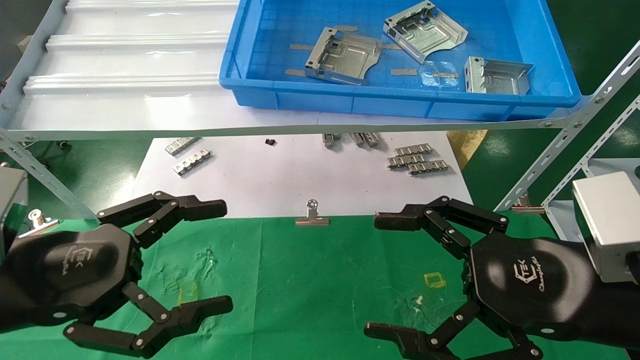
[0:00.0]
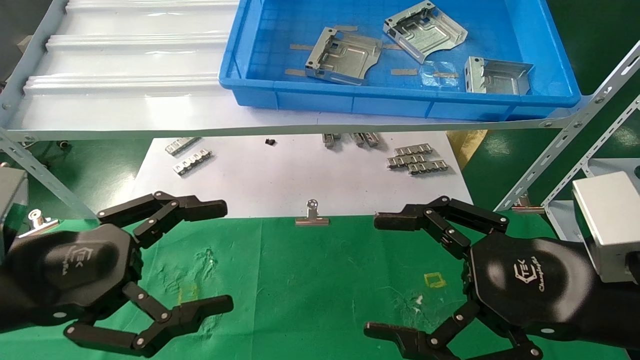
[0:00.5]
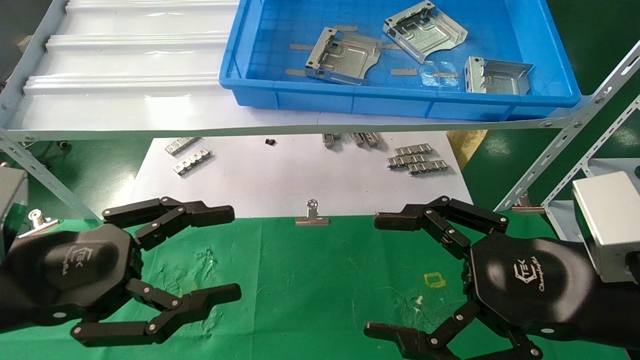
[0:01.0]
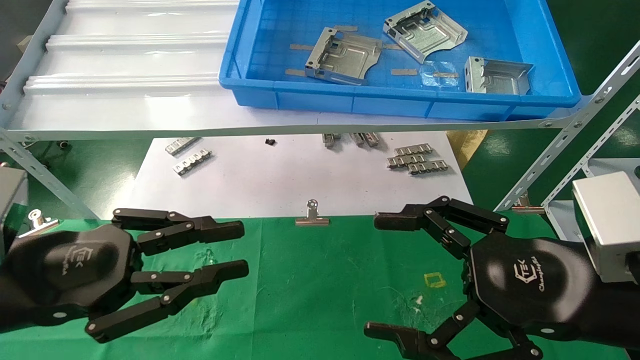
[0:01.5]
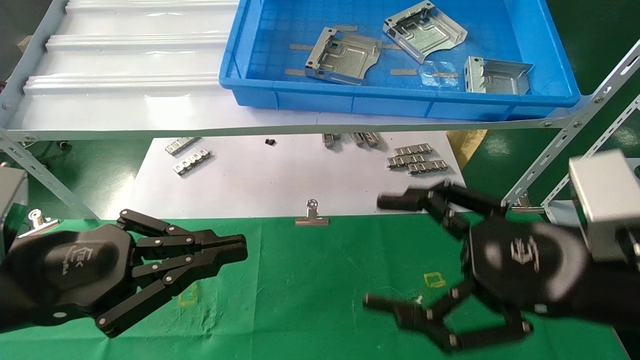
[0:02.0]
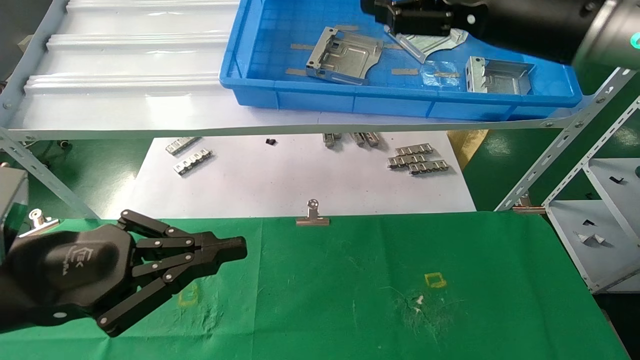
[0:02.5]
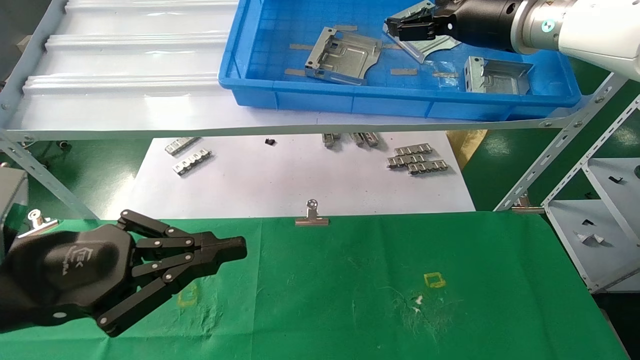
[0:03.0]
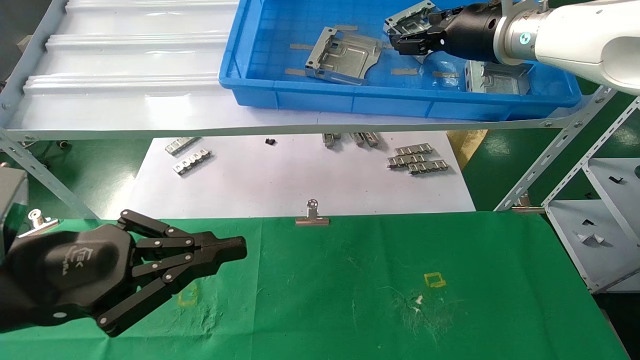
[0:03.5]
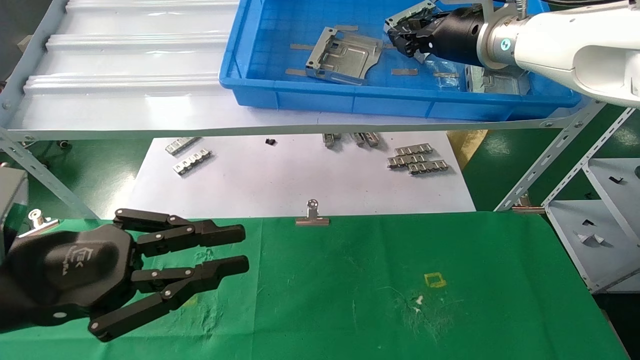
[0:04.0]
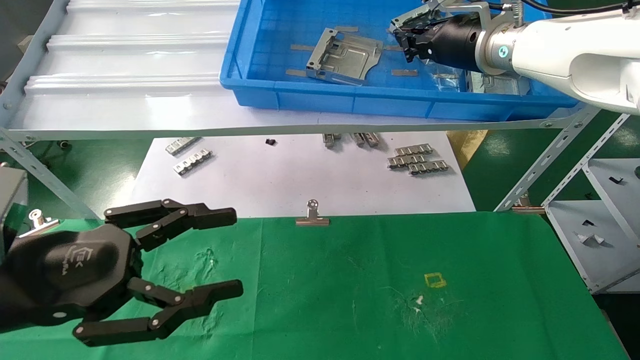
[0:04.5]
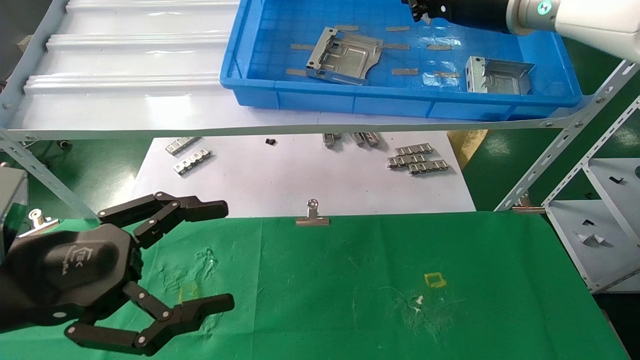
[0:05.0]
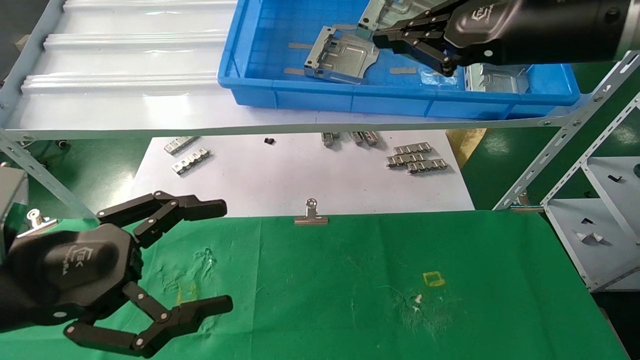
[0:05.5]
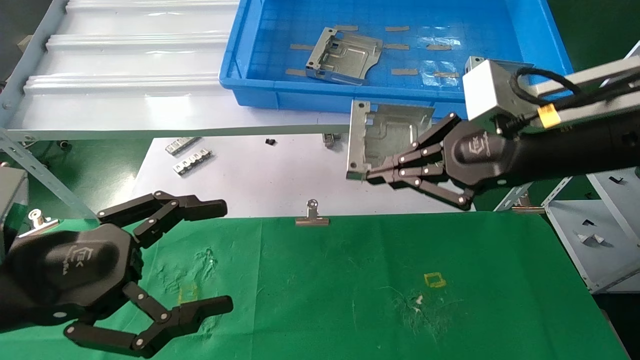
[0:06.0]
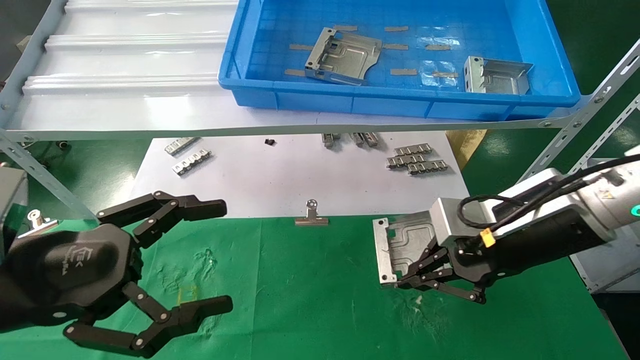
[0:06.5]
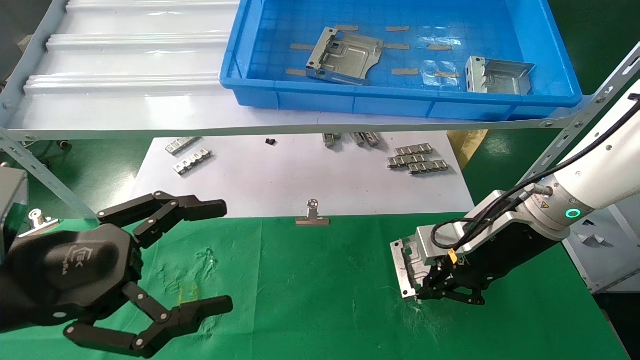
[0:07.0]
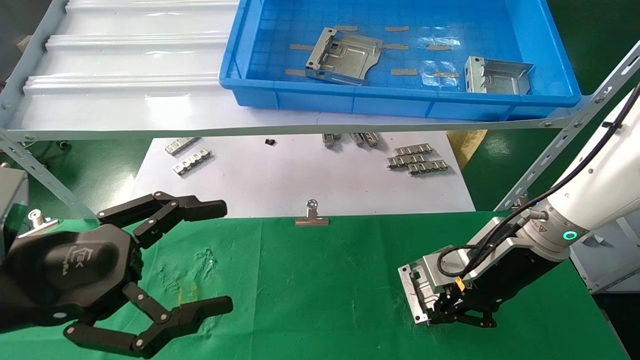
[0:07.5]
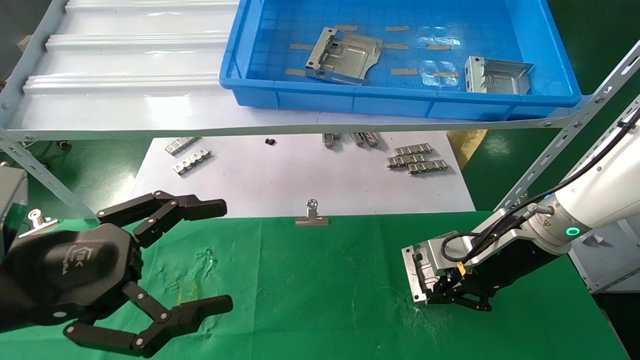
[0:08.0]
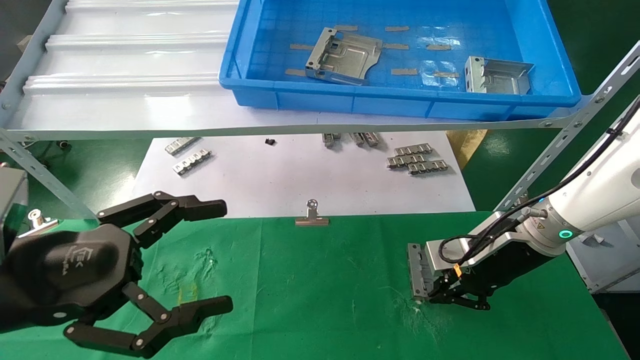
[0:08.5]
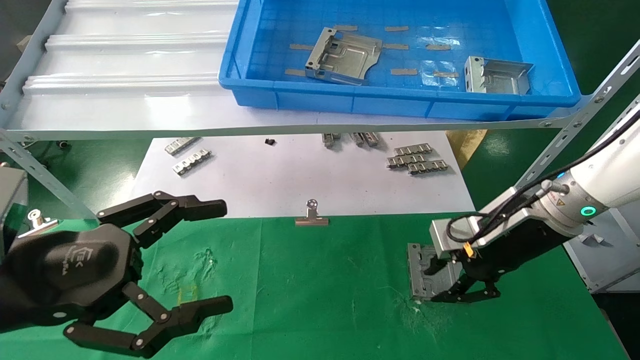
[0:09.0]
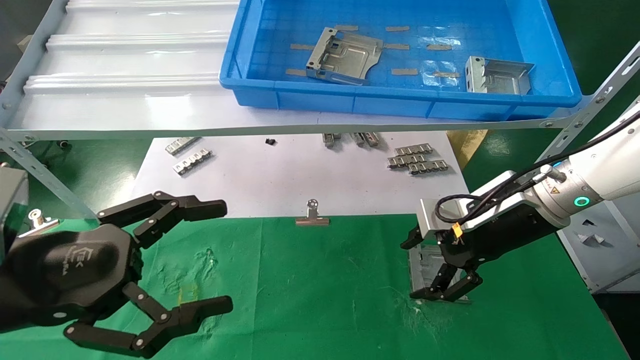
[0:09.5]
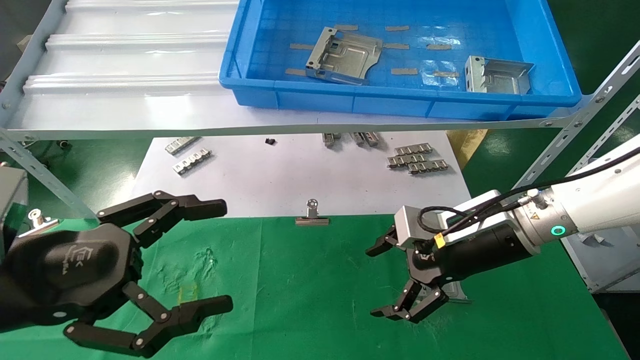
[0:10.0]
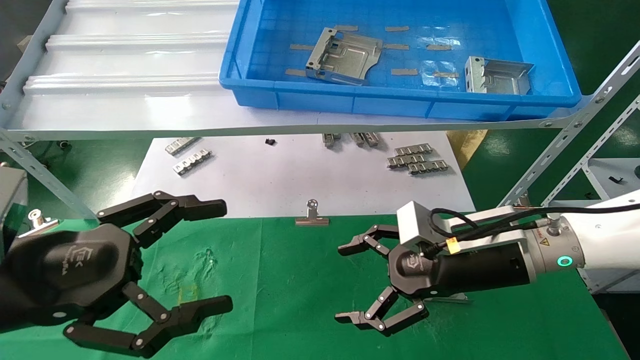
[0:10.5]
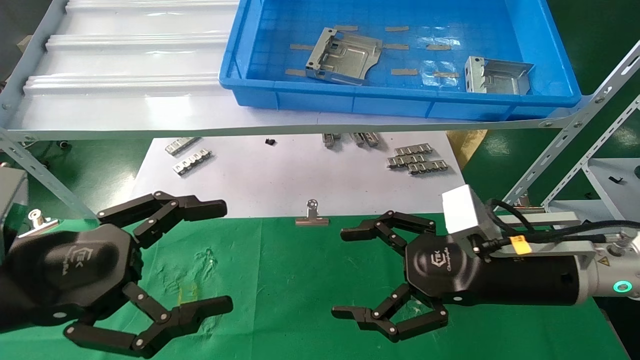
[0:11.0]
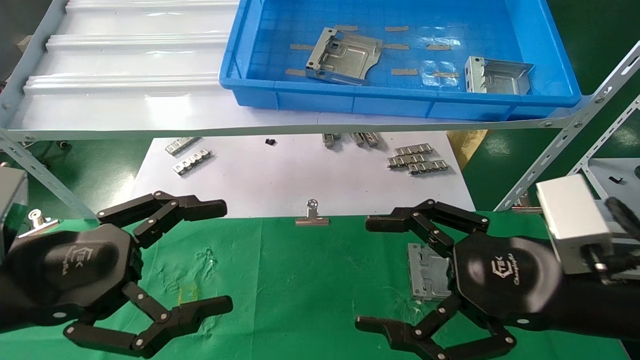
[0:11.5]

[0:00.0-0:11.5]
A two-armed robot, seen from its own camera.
Task of the whole recording: use the mechanical arm to pick up the parts and place them on the table.
Step, 0:02.0 to 0:06.0: Pick up the hard drive bracket from the feeding area.
Step, 0:06.5 to 0:09.0: Place the hard drive bracket into the box.
0:00.0 to 0:02.0: The right gripper ends up roughly 5 cm from where it was. Meanwhile the left gripper closes its fingers.
0:02.0 to 0:04.0: The right gripper is displaced forward and upward by approximately 30 cm, and closes.
0:04.0 to 0:06.0: The left gripper opens, while the right gripper shifts approximately 20 cm backward, and closes its fingers.
0:06.0 to 0:07.5: The right gripper shifts some 15 cm downward and forward.
0:07.5 to 0:09.5: The right gripper opens its fingers.
0:09.5 to 0:11.5: The right gripper moves backward, some 15 cm.
